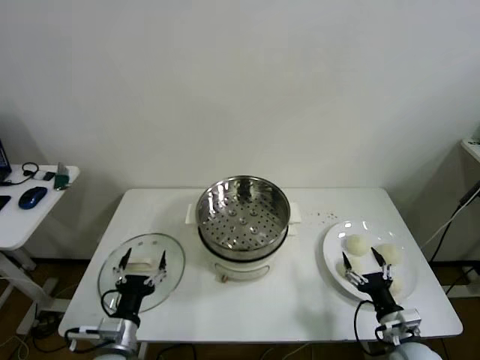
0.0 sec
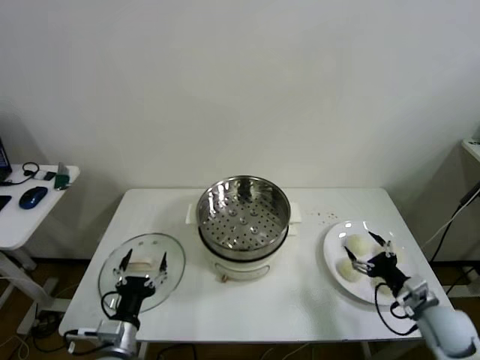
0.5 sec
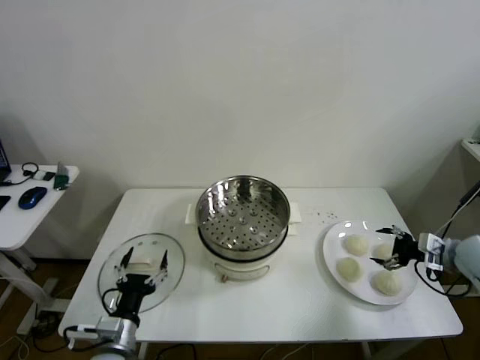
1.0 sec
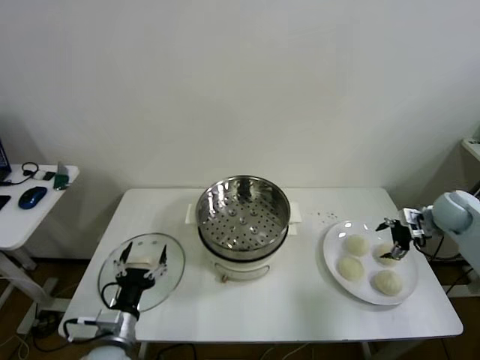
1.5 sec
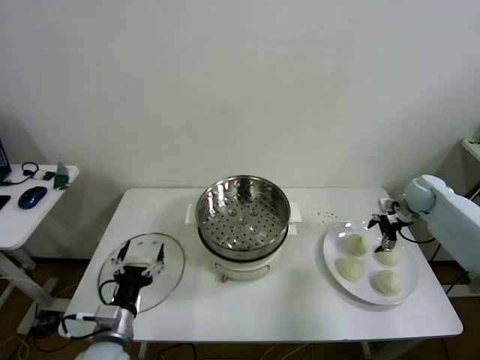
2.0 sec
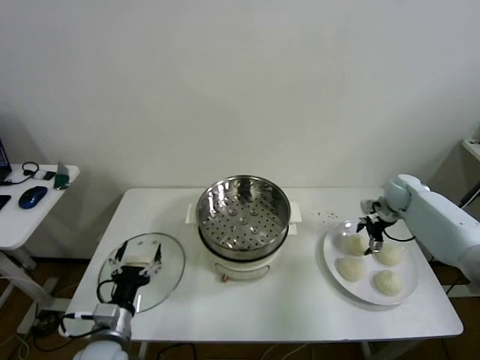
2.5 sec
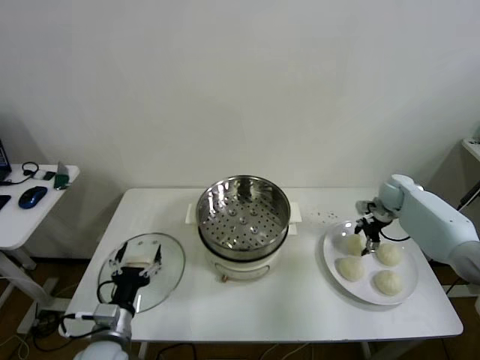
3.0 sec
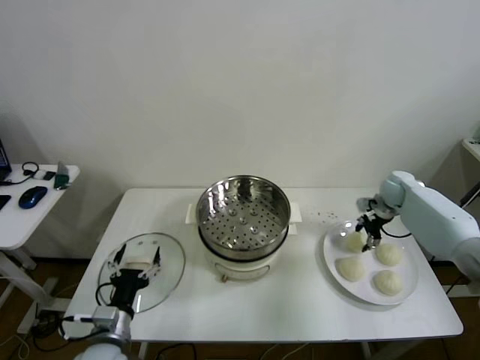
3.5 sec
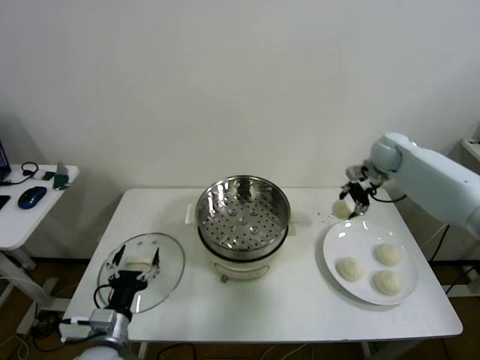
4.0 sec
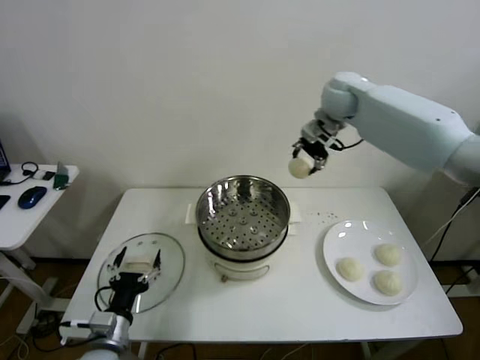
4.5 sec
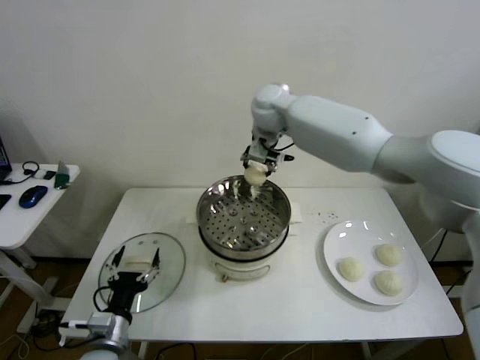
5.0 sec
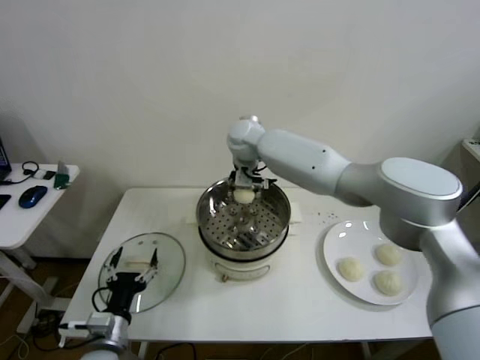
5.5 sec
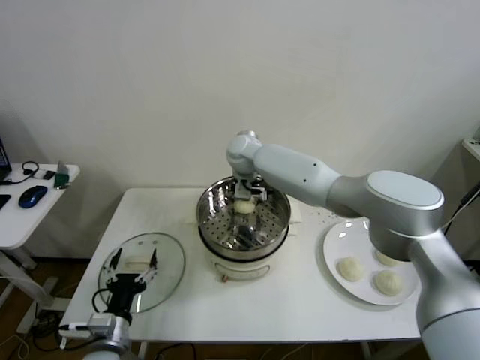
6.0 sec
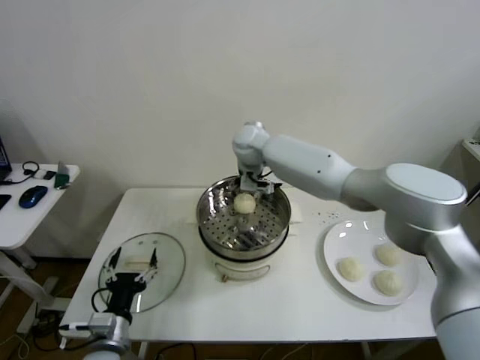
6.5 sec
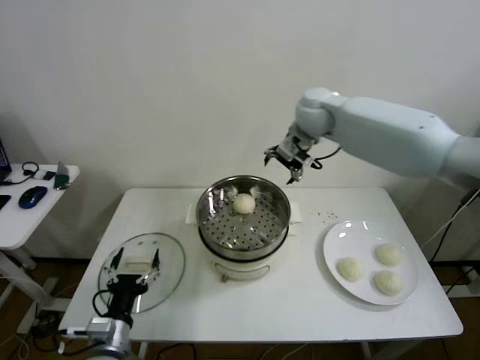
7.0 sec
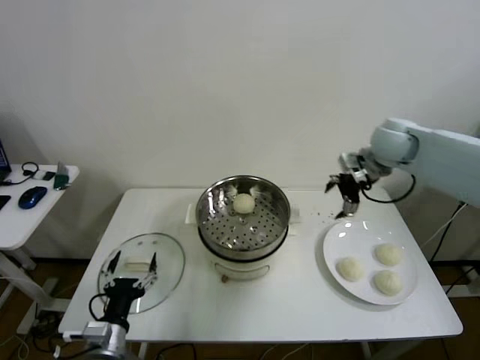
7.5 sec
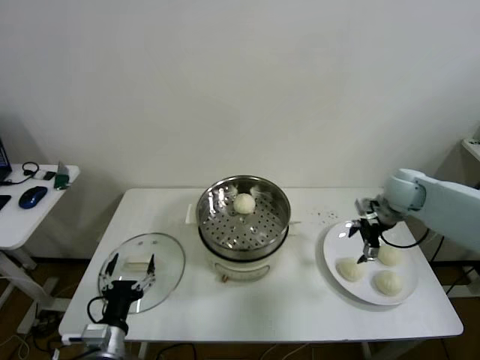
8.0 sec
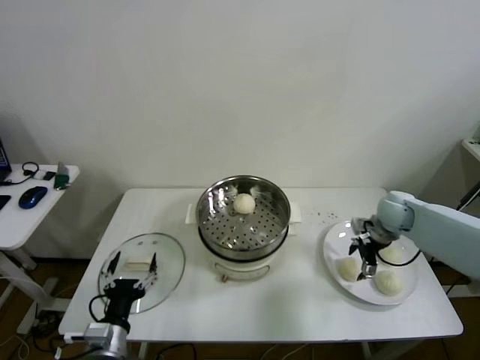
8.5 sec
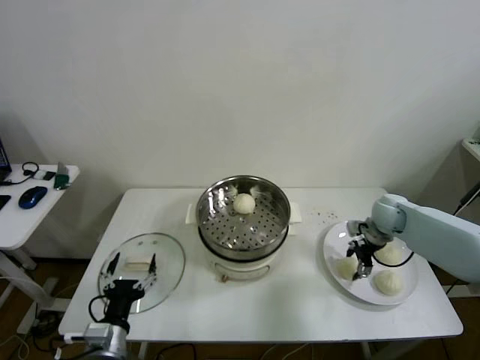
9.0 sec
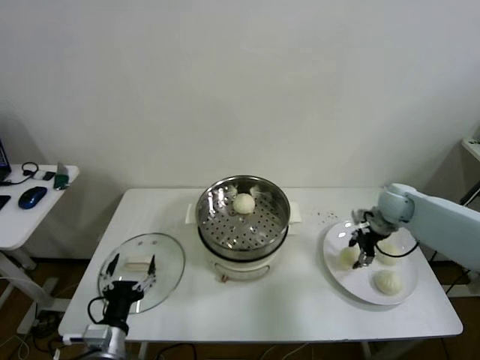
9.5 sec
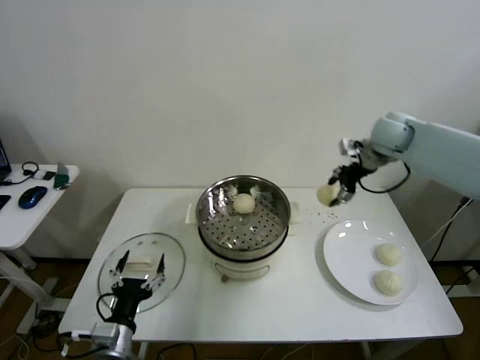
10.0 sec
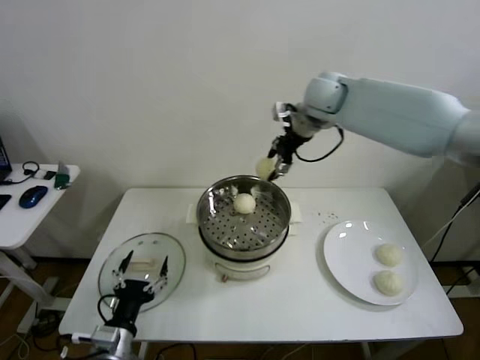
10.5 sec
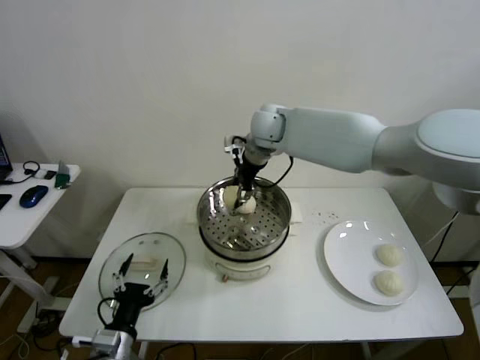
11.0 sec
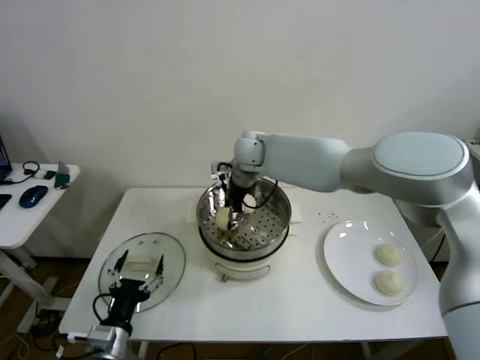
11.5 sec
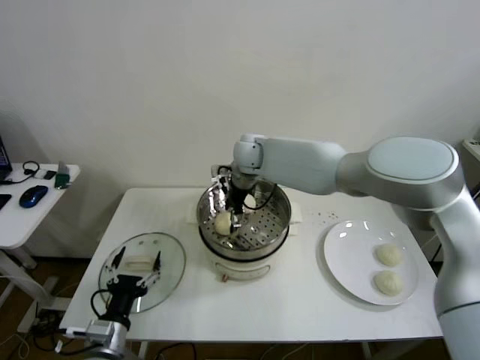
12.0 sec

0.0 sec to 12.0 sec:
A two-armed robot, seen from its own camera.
Step, 0.0 sec to 3.0 sec: Grasp the baozi in the plate with right gripper.
Step, 3.5 sec to 6.0 sec: Place the baozi on the steamer with right gripper.
Step, 6.5 sec to 9.0 sec: Grasp the baozi in the plate with right gripper.
Step, 9.5 sec to 12.0 sec: Place the baozi on the steamer with right gripper.
2.0 sec to 4.0 sec: The right gripper shifts about 20 cm upward, to the left and forward, and closes its fingers.
4.0 sec to 6.0 sec: The right gripper goes some 35 cm to the left, and opens.
6.0 sec to 8.0 sec: The right gripper shifts roughly 40 cm to the right.
8.0 sec to 10.0 sec: The right gripper goes approximately 20 cm upward, forward and to the left, and closes up.
10.0 sec to 12.0 sec: The right gripper heads to the left, covering about 30 cm, and opens up.

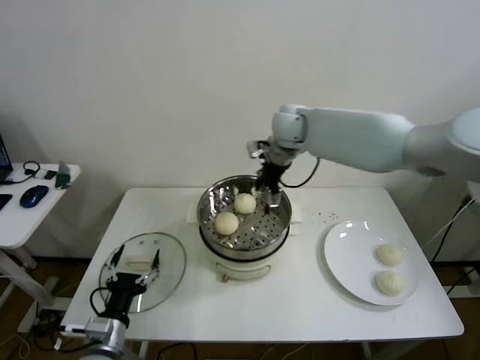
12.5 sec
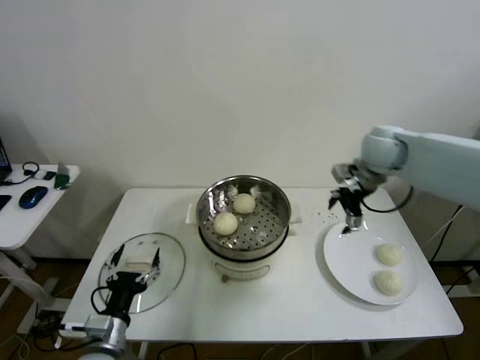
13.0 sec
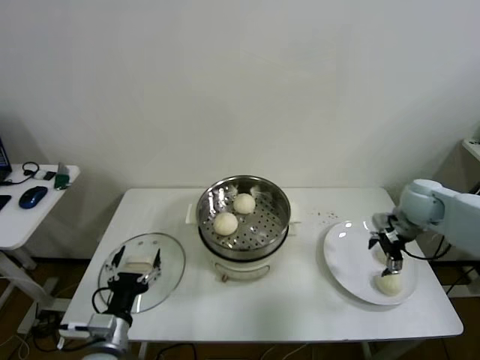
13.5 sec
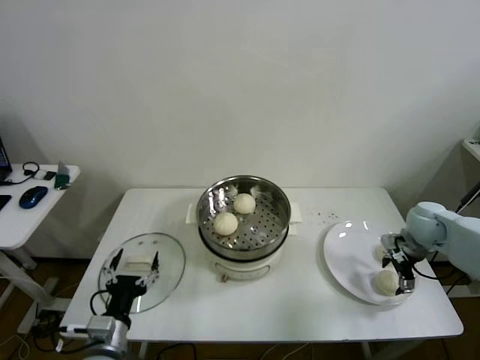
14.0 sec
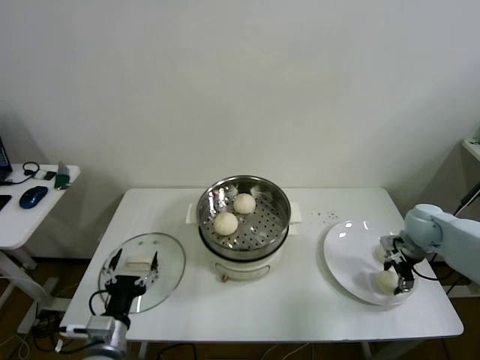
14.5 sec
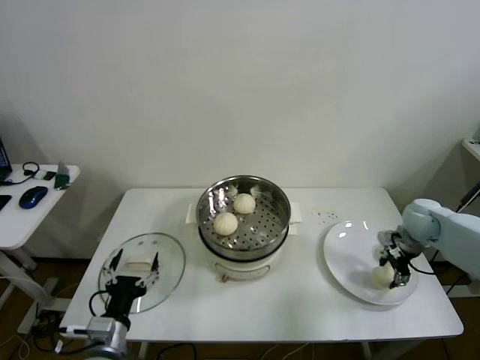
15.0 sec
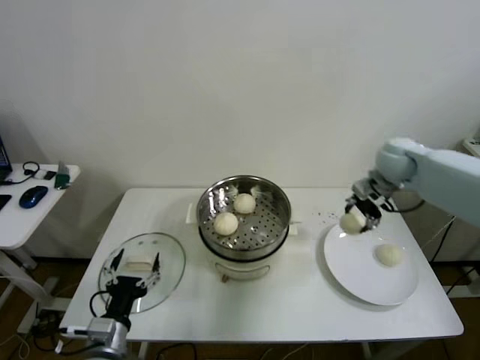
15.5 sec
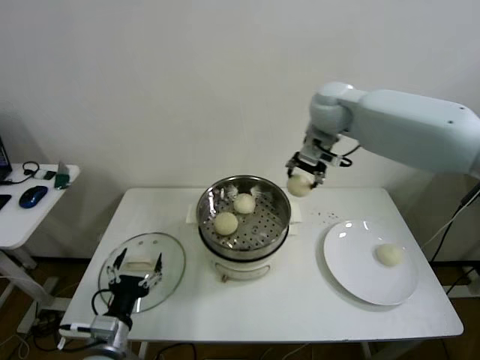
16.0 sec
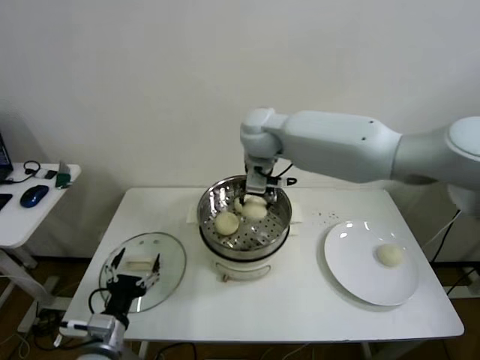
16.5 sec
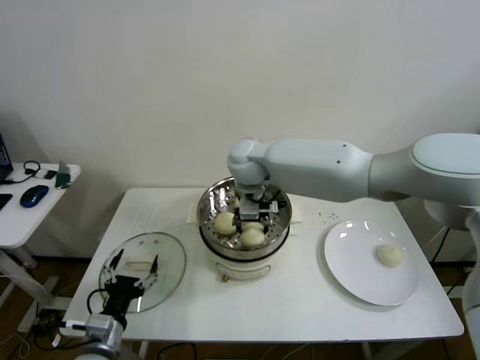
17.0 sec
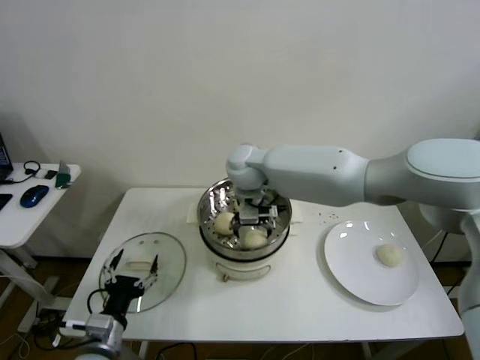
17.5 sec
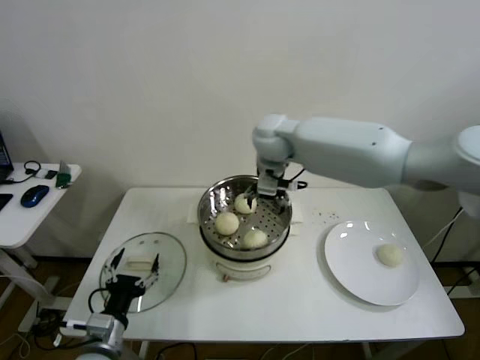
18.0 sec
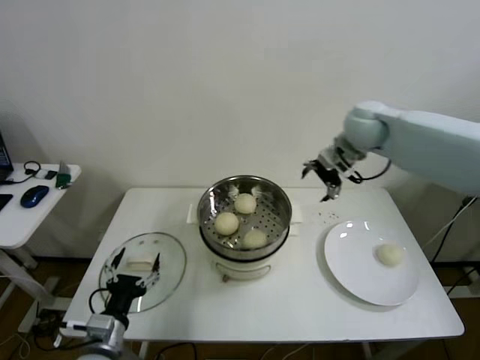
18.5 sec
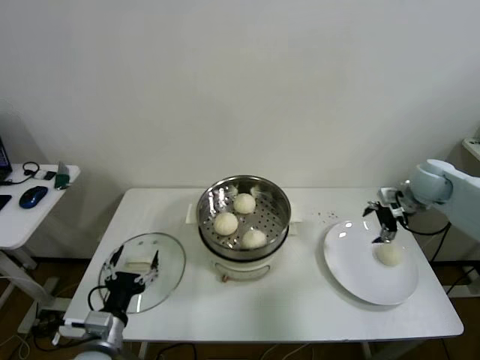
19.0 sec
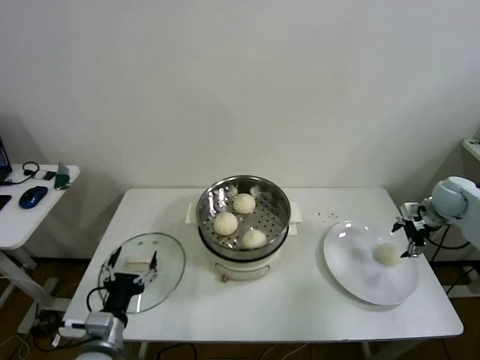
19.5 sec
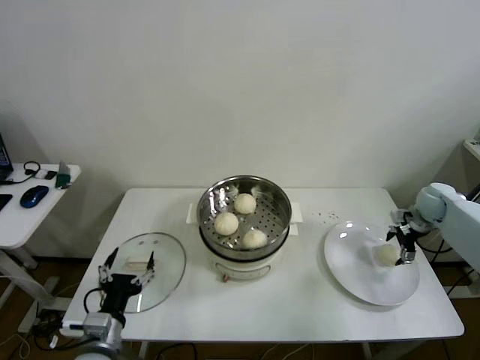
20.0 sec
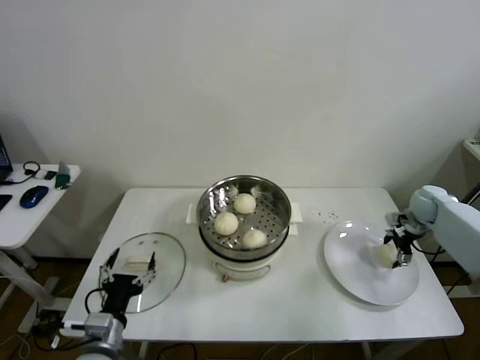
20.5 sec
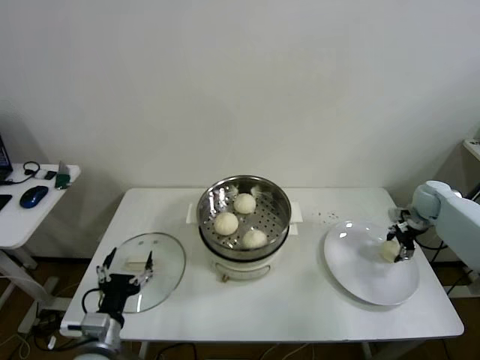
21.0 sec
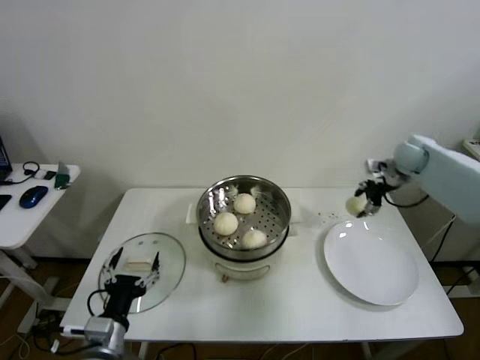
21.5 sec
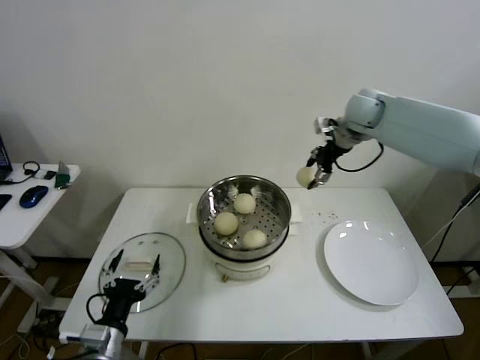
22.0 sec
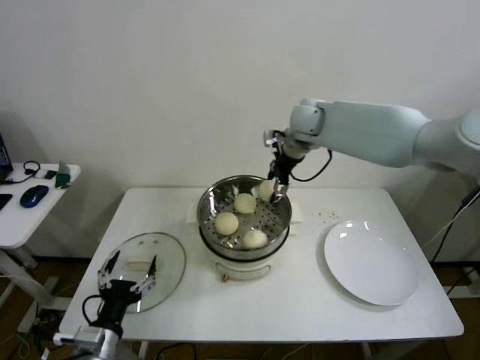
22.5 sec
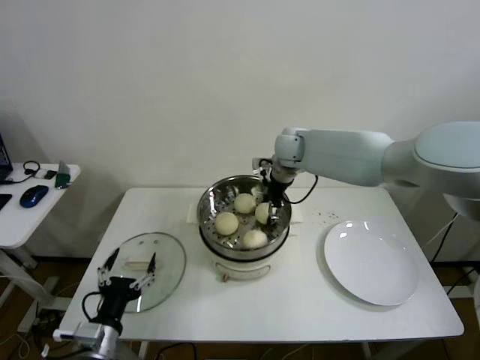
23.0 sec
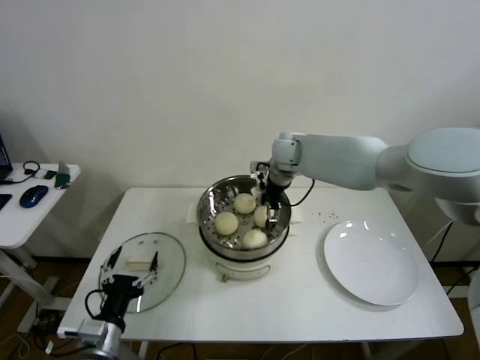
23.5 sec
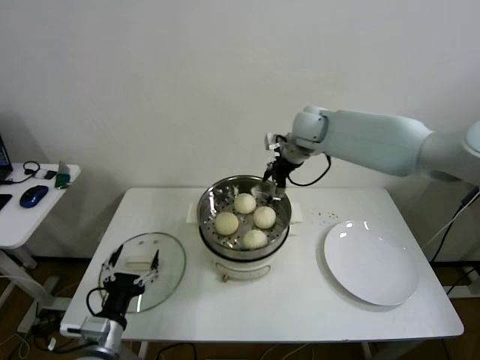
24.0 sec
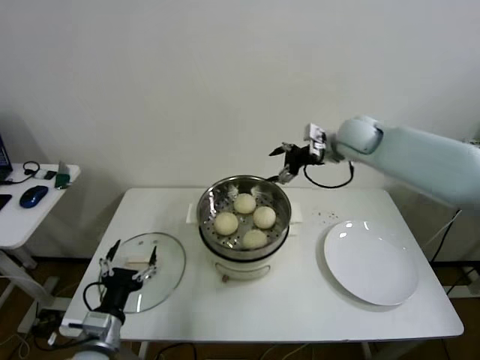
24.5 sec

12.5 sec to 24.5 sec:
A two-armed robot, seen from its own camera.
Step, 12.5 sec to 14.5 sec: Grasp the baozi in the plate with right gripper.
Step, 15.0 sec to 17.5 sec: Place the baozi on the steamer with right gripper.
Step, 18.0 sec to 20.5 sec: Grasp the baozi in the plate with right gripper.
Step, 21.0 sec to 23.5 sec: Place the baozi on the steamer with right gripper.
12.5 sec to 14.5 sec: The right gripper heads to the right and downward, covering about 40 cm, and closes its fingers.
14.5 sec to 16.5 sec: The right gripper moves to the left and upward, approximately 50 cm.
16.5 sec to 18.5 sec: The right gripper is displaced to the right by roughly 25 cm, and opens.
18.5 sec to 20.5 sec: The right gripper is displaced to the right and downward by about 35 cm.
20.5 sec to 22.5 sec: The right gripper heads to the left and upward, covering about 40 cm, and closes.
22.5 sec to 24.5 sec: The right gripper shifts some 10 cm to the right, and opens.

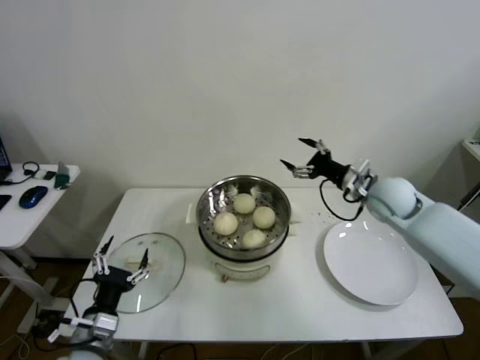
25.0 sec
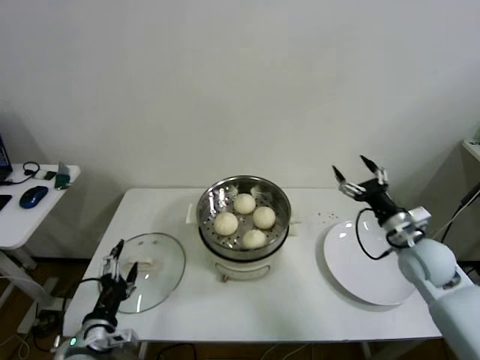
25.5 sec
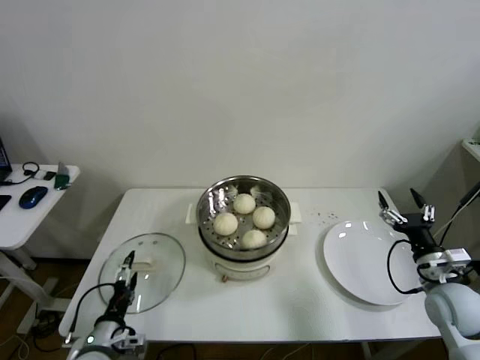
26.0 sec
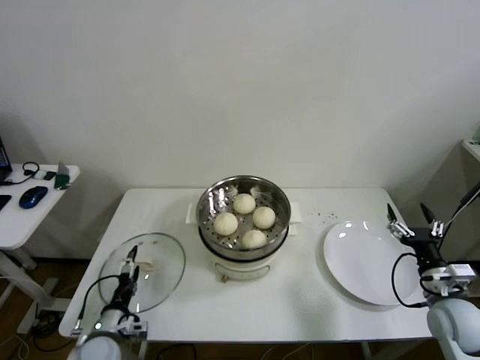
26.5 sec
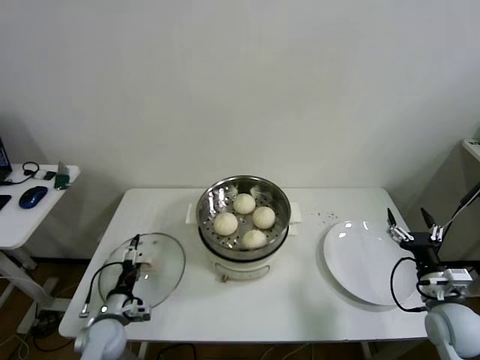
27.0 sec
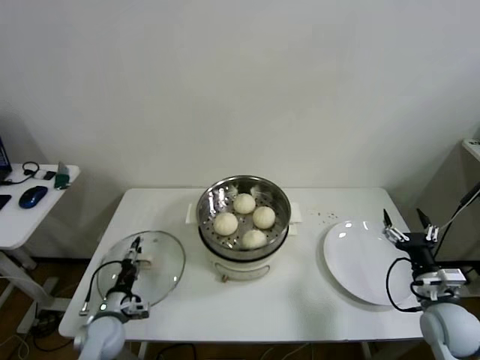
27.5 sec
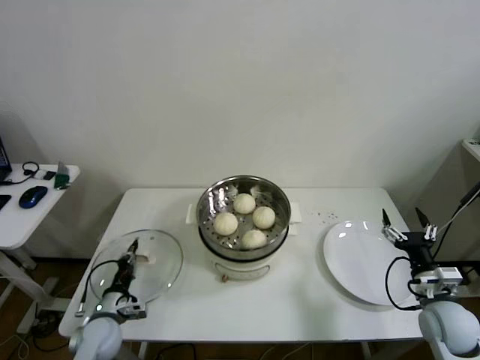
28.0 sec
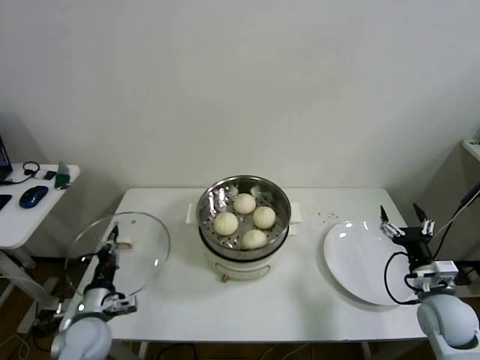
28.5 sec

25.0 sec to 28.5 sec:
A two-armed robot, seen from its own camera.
Step, 25.0 sec to 27.5 sec: Grasp the pot lid with left gripper.
25.0 sec to 27.0 sec: The left gripper shifts approximately 15 cm downward and forward; the right gripper is displaced backward, downward and to the right by approximately 30 cm.
27.0 sec to 28.5 sec: The left gripper moves upward, roughly 5 cm, and closes up.
